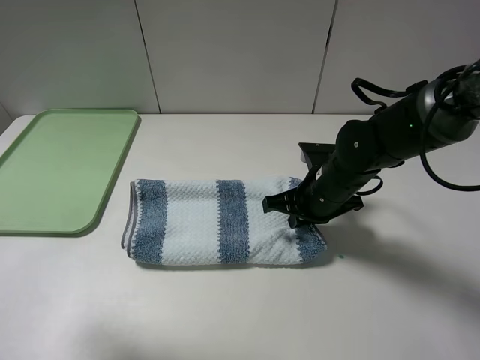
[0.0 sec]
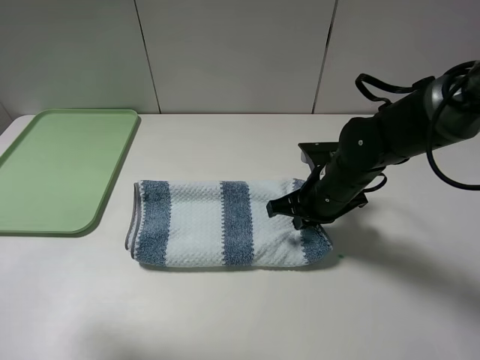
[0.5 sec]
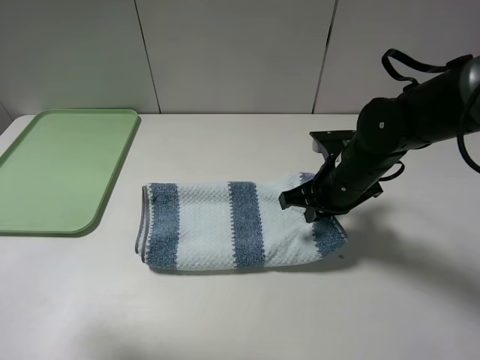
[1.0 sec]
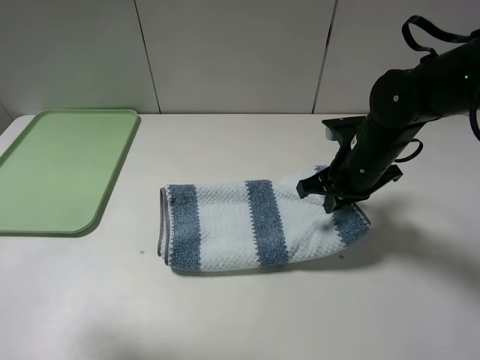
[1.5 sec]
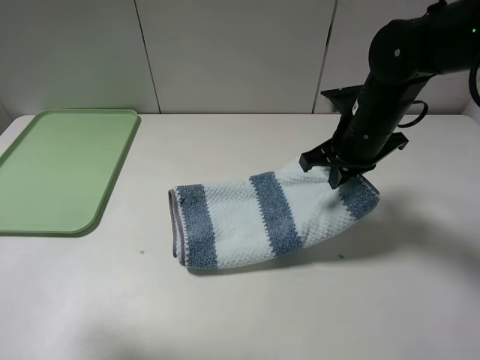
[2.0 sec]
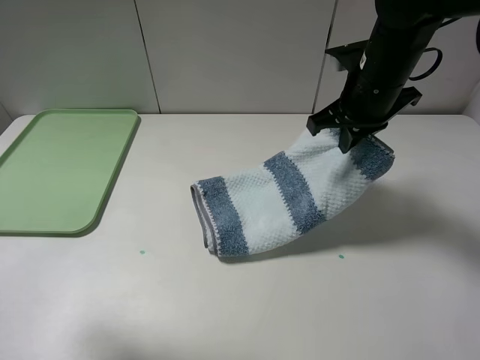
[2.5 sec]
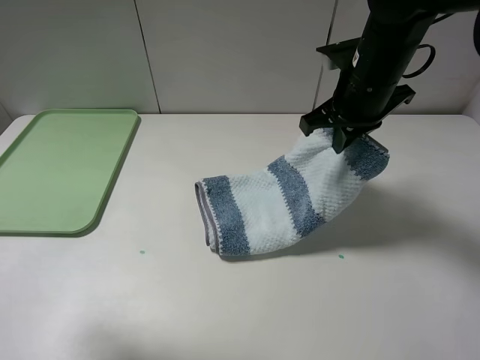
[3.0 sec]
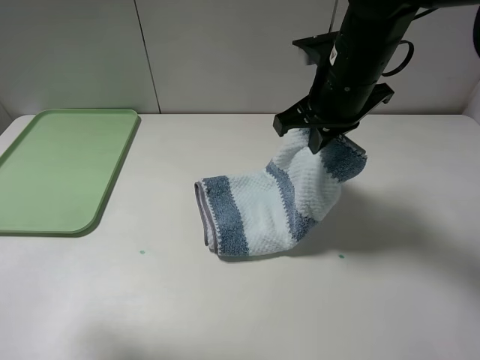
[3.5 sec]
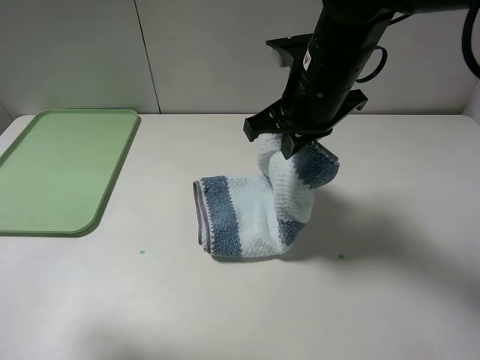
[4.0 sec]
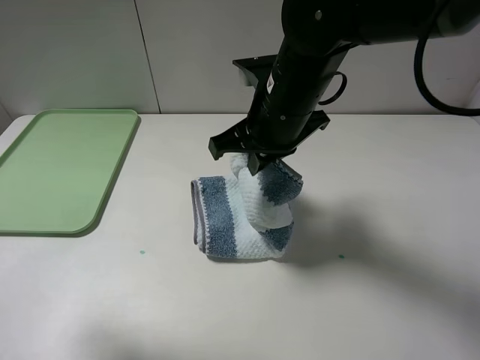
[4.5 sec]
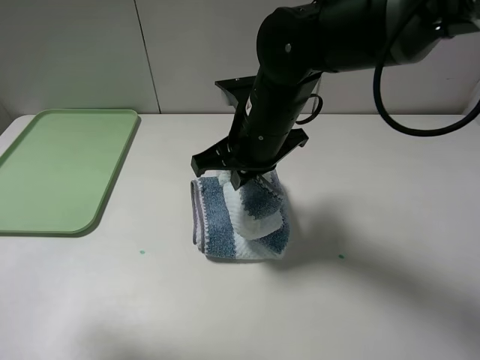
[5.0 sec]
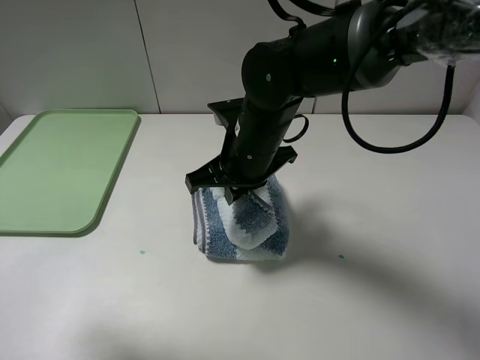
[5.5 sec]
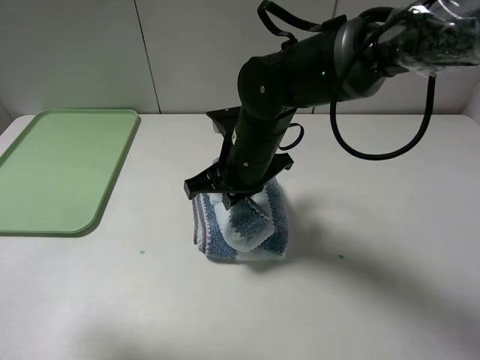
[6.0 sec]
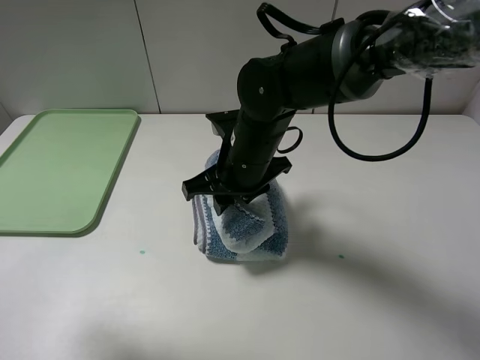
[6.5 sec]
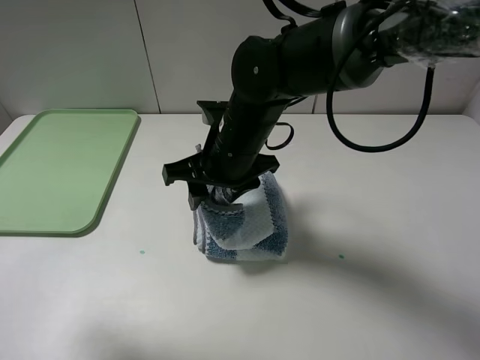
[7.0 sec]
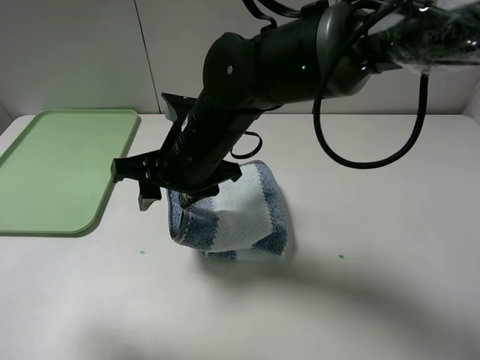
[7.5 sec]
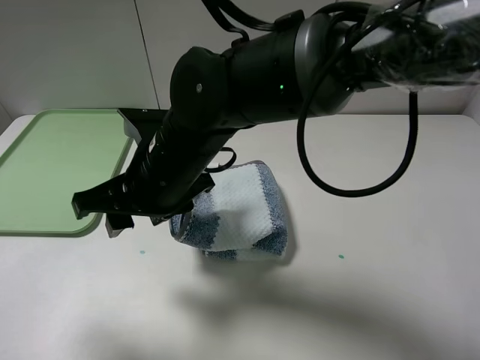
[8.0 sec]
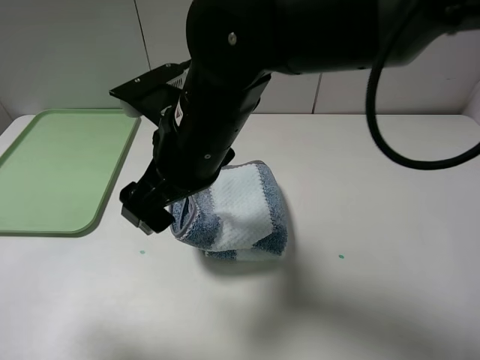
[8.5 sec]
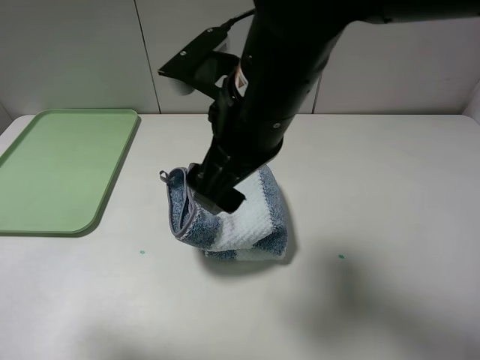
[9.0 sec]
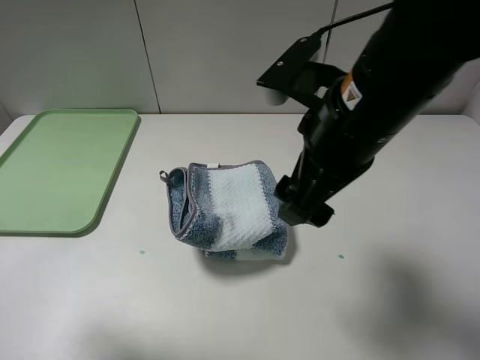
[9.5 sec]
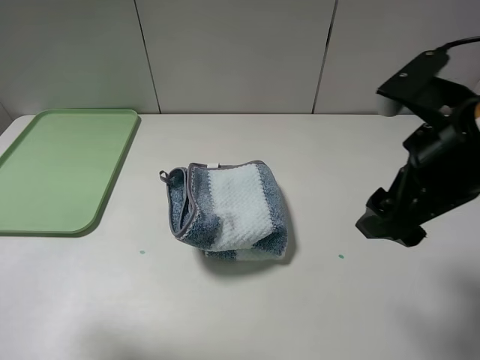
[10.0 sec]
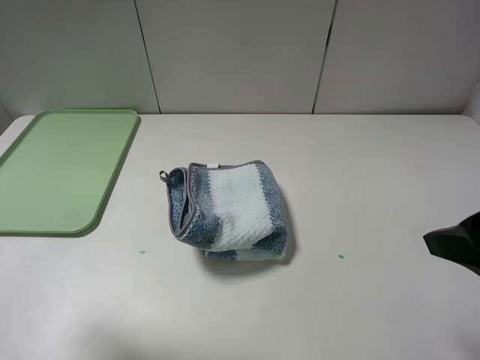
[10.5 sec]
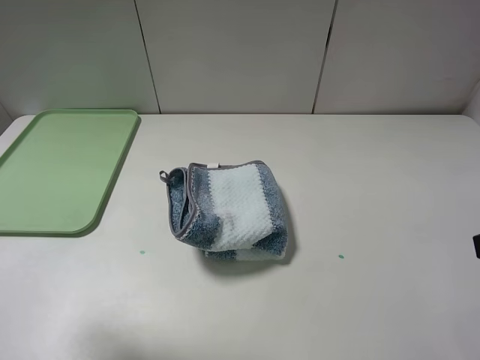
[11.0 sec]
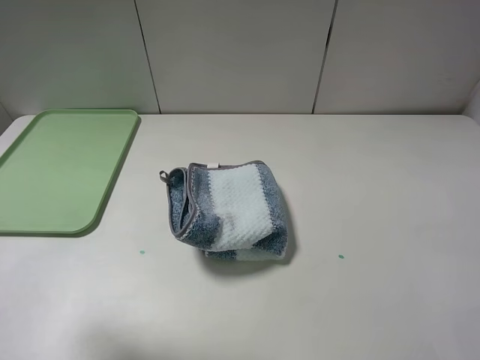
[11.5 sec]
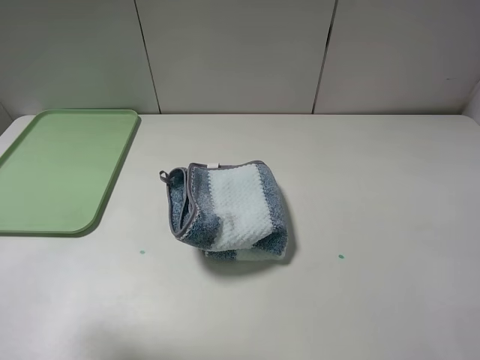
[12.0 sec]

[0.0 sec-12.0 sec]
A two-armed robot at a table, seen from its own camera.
Step, 0.5 sec to 8.0 sec: Fold the blue white towel from right to left with right gripper.
0.0 sec to 2.0 sec: The right gripper heads upward, covering some 10 cm.
2.0 sec to 4.0 sec: The right gripper shifts about 10 cm to the left and upward.
4.0 sec to 6.0 sec: The right gripper heads downward and to the left, covering approximately 10 cm.
6.0 sec to 8.0 sec: The right gripper heads to the left and backward, covering roughly 10 cm, and opens its fingers.
8.0 sec to 10.0 sec: The right gripper is displaced to the right by roughly 25 cm, and opens its fingers.
10.0 sec to 12.0 sec: The right gripper heads backward and to the right, covering roughly 20 cm.

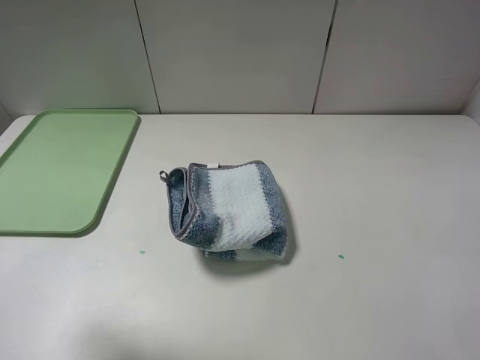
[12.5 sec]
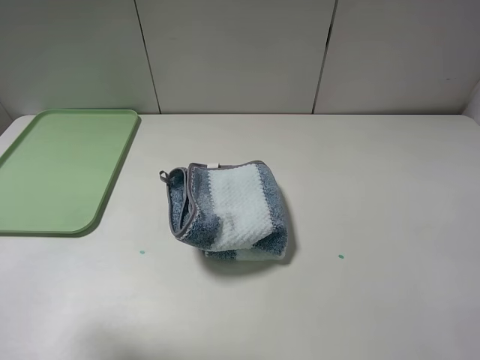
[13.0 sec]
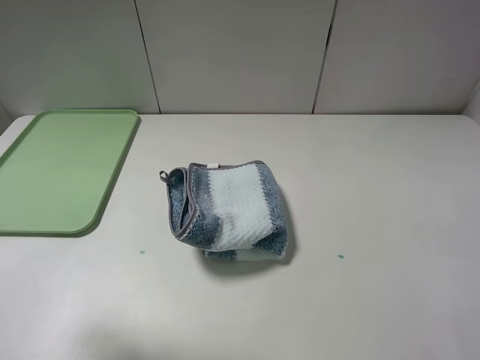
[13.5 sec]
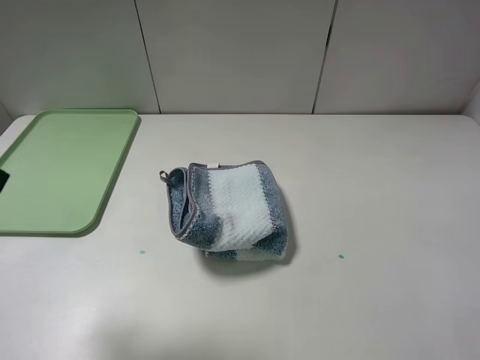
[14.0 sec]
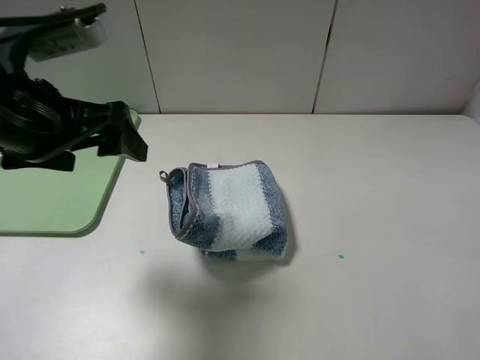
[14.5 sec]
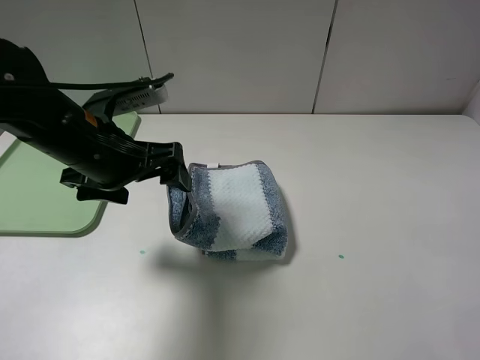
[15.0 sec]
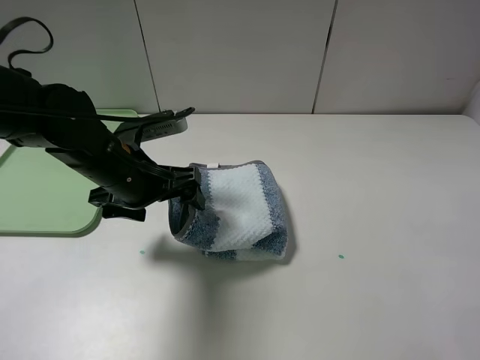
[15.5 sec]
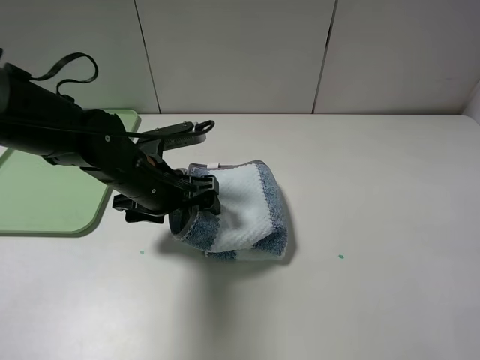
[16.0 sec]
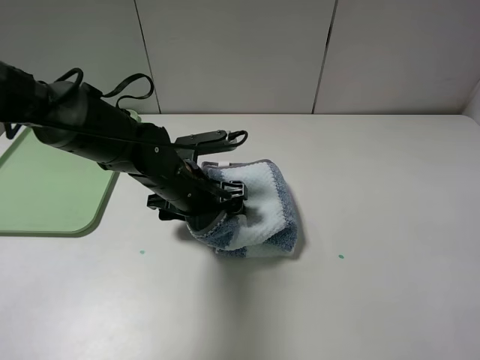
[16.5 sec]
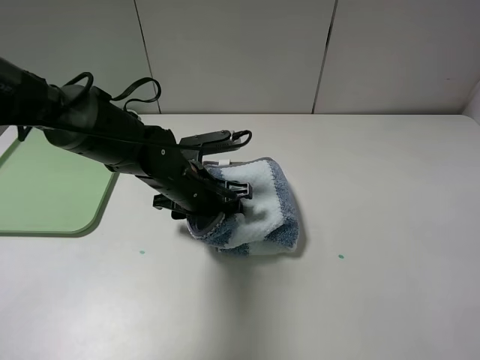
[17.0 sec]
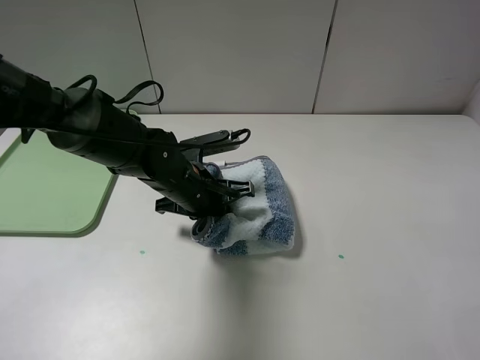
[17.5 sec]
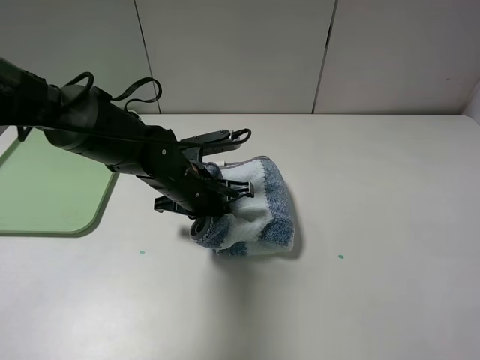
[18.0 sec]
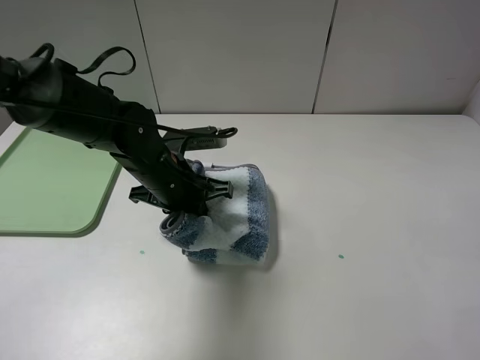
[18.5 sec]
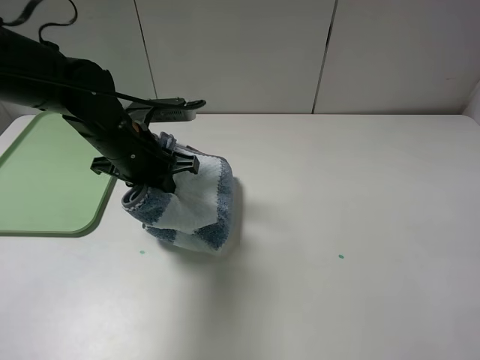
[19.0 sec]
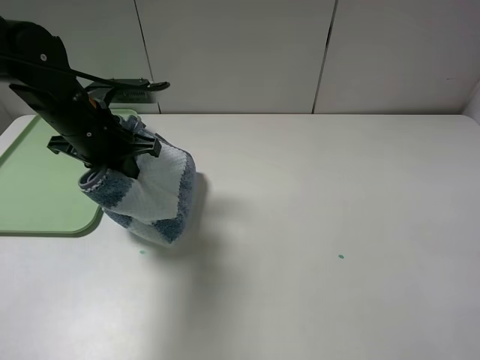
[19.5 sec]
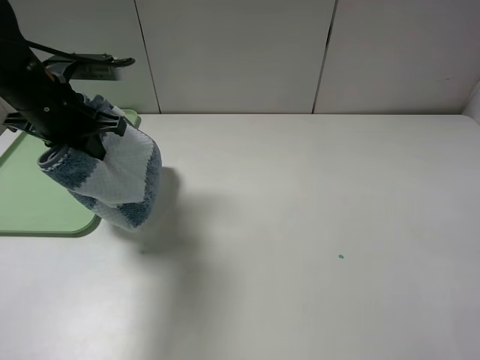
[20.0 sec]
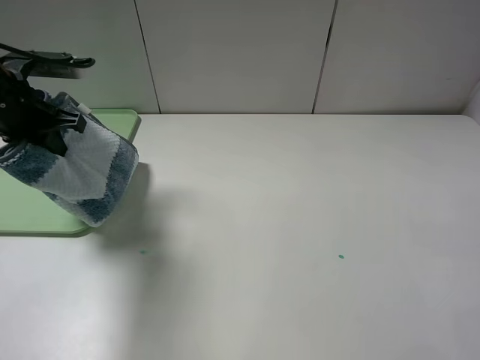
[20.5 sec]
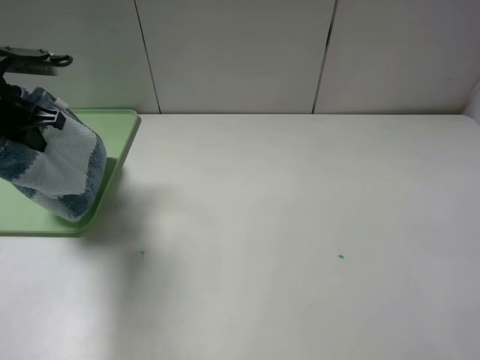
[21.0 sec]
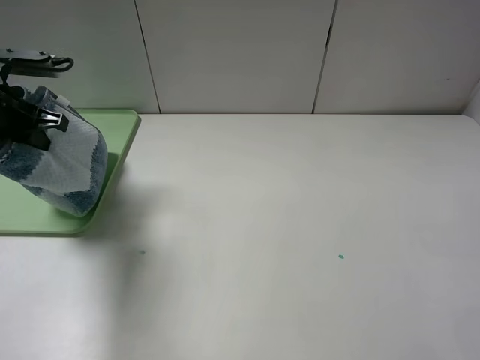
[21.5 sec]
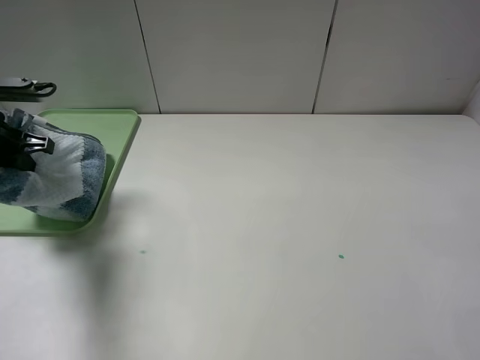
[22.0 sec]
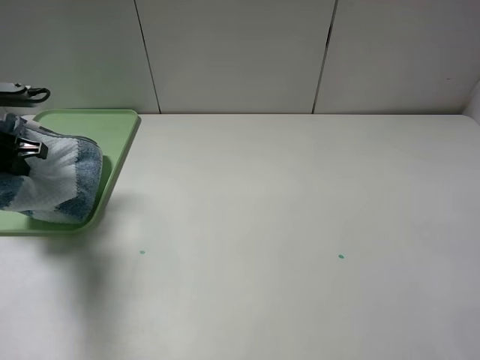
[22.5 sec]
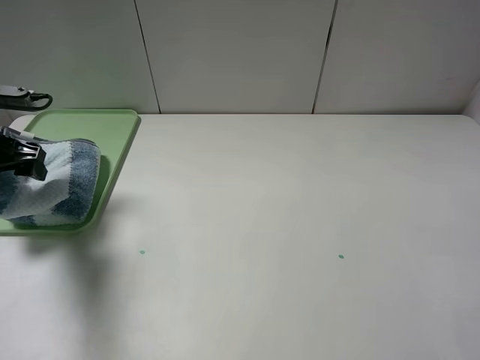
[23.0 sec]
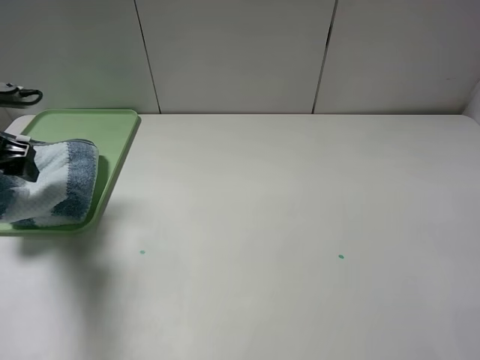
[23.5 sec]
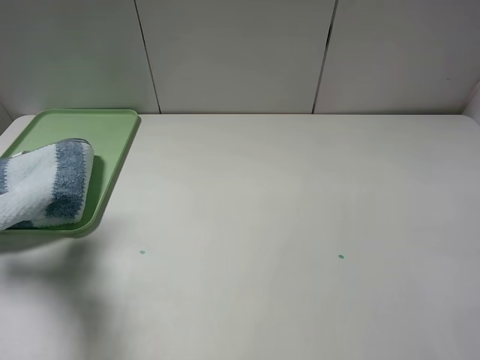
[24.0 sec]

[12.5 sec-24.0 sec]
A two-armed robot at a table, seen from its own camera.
Step, 12.5 sec to 17.5 sec: Grasp the blue white towel with the left gripper.
12.5 sec to 14.5 sec: The left gripper travels forward, to the right and downward by about 15 cm.
14.5 sec to 16.5 sec: The left gripper travels downward, to the right and forward by roughly 25 cm.
16.5 sec to 18.5 sec: The left gripper closes.
18.5 sec to 20.0 sec: The left gripper heads to the left and upward, covering roughly 20 cm.
20.0 sec to 22.0 sec: The left gripper travels to the left by some 10 cm.
22.0 sec to 24.0 sec: The left gripper shifts roughly 10 cm backward and upward, and opens up.

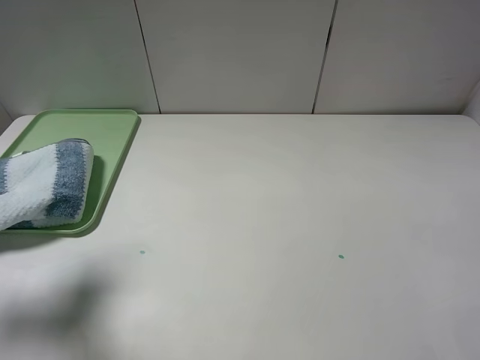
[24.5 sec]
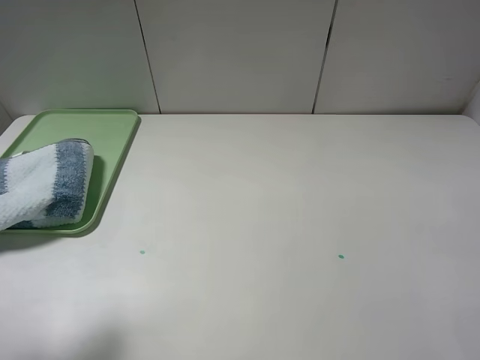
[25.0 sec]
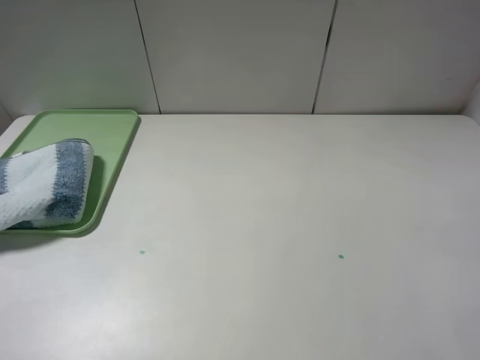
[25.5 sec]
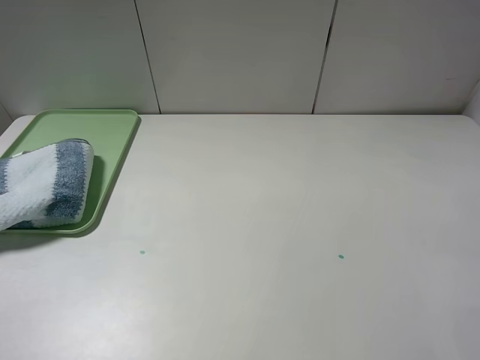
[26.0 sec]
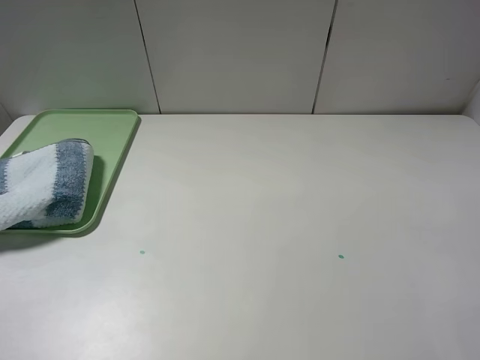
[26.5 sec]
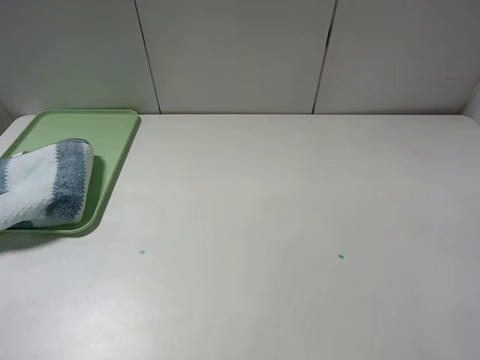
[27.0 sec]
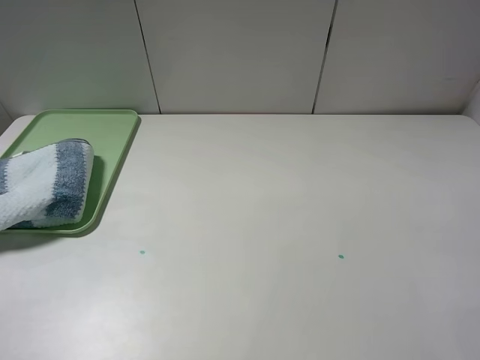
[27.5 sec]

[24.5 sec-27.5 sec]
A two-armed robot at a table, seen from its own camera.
24.5 sec to 26.0 sec: The left gripper heads backward, covering roughly 15 cm.
